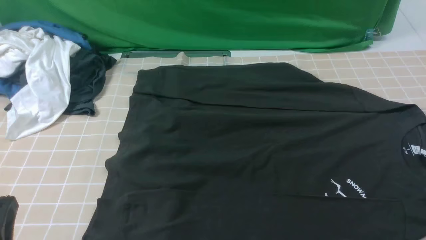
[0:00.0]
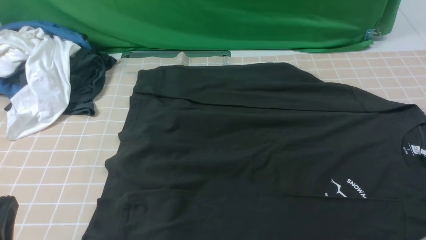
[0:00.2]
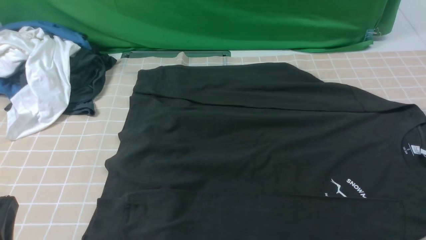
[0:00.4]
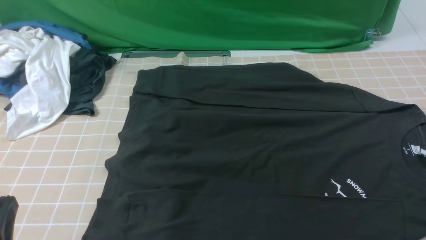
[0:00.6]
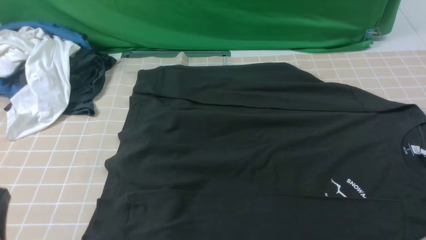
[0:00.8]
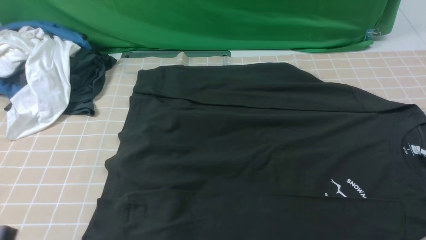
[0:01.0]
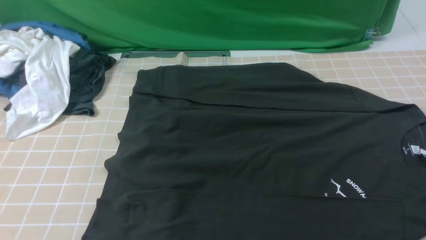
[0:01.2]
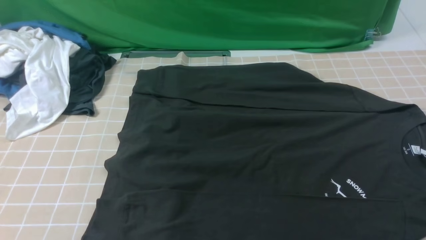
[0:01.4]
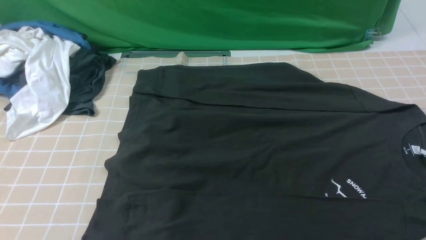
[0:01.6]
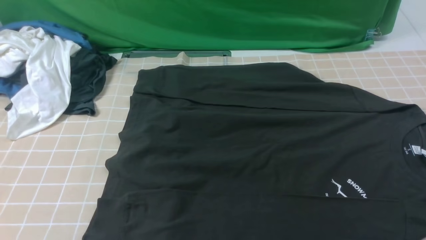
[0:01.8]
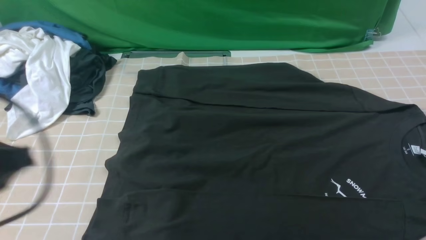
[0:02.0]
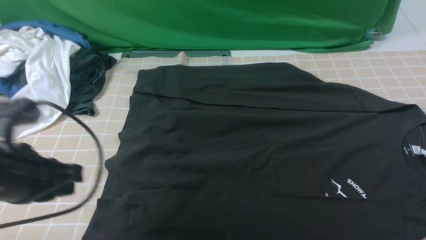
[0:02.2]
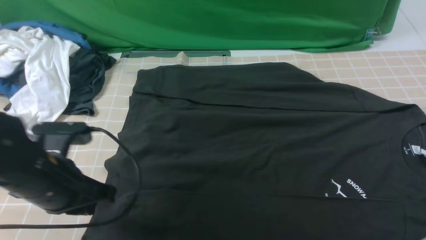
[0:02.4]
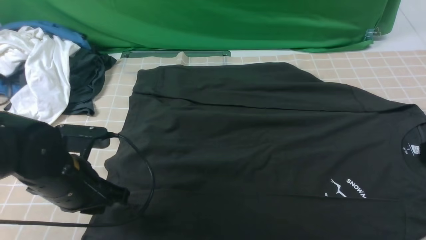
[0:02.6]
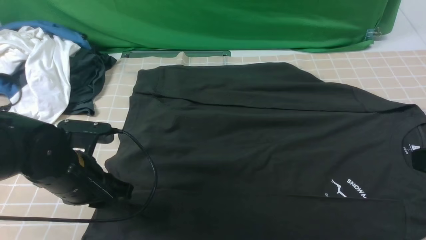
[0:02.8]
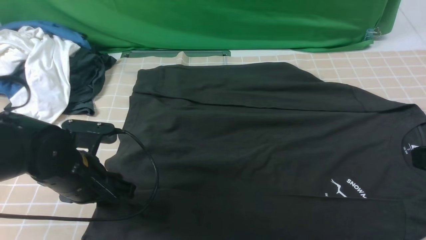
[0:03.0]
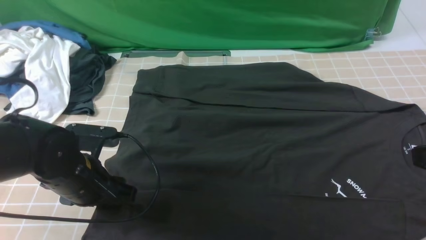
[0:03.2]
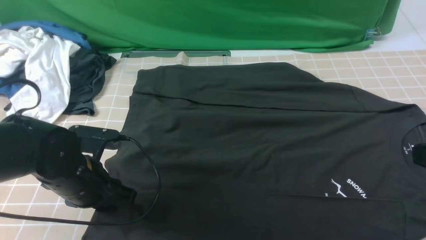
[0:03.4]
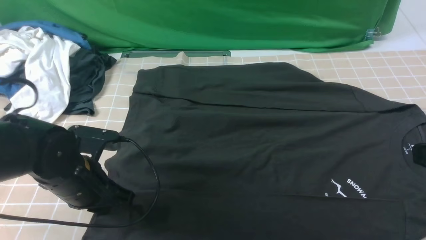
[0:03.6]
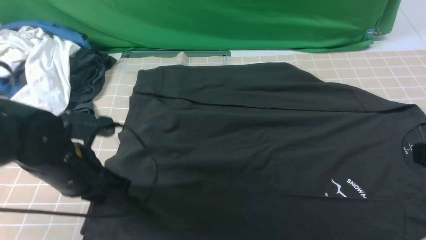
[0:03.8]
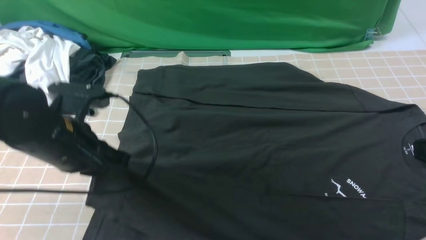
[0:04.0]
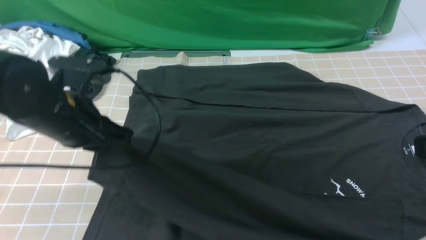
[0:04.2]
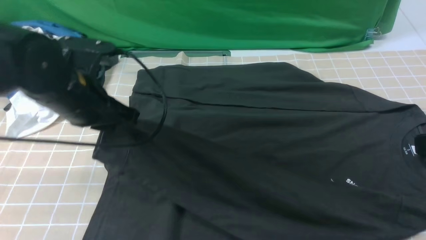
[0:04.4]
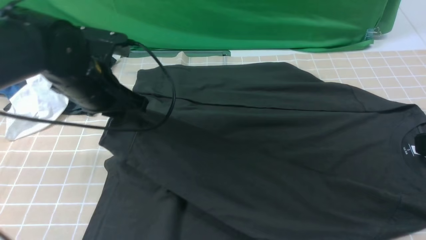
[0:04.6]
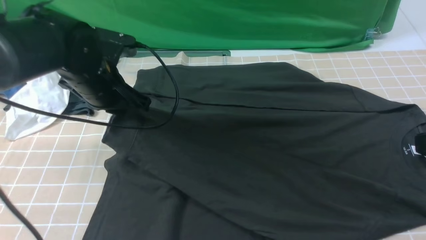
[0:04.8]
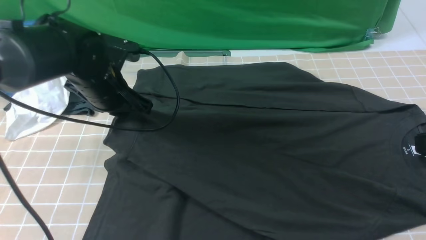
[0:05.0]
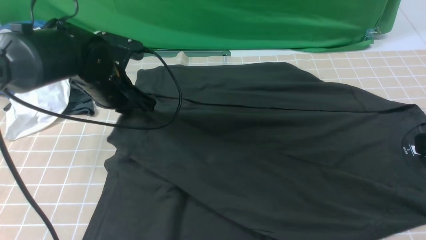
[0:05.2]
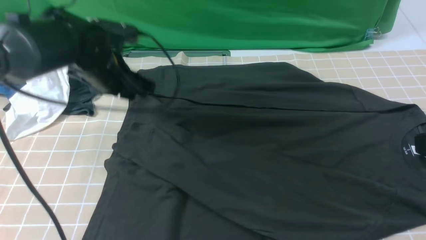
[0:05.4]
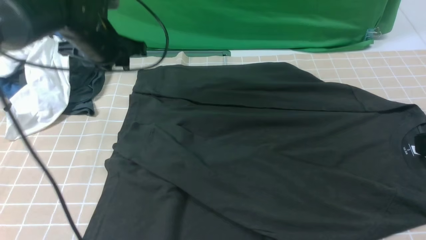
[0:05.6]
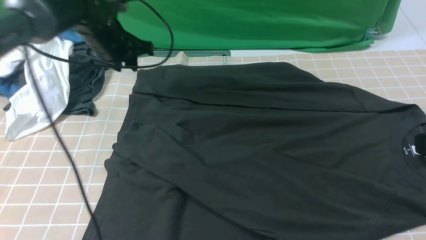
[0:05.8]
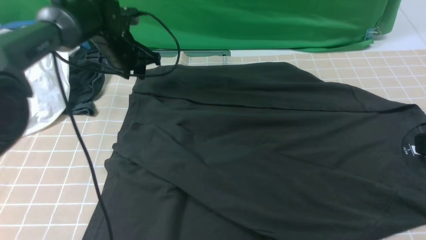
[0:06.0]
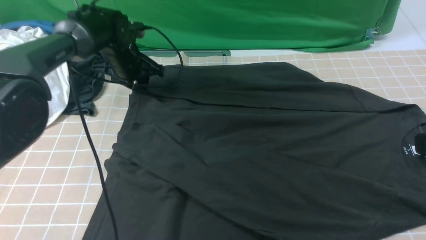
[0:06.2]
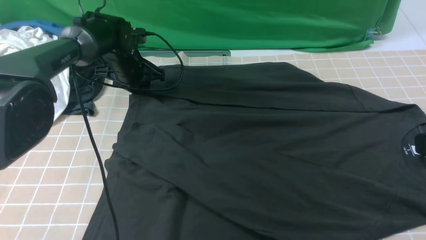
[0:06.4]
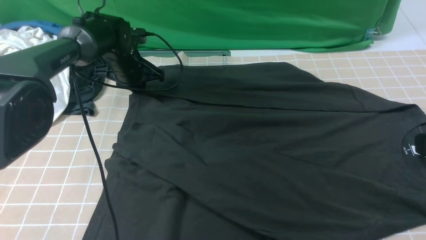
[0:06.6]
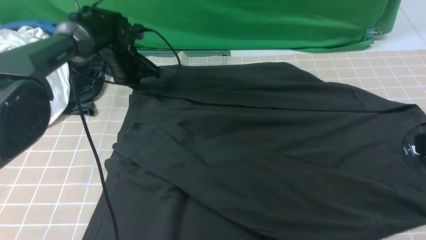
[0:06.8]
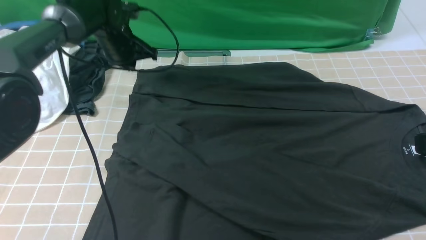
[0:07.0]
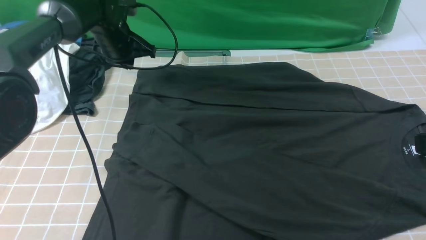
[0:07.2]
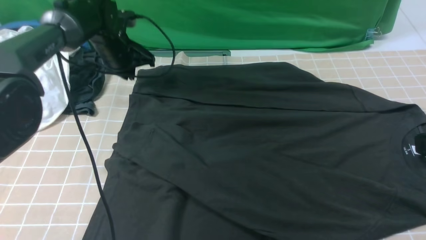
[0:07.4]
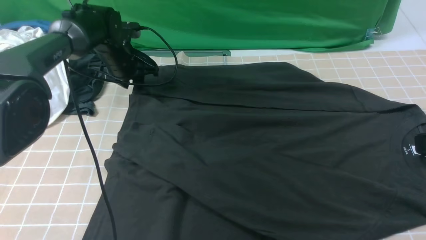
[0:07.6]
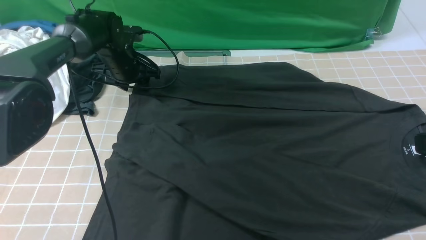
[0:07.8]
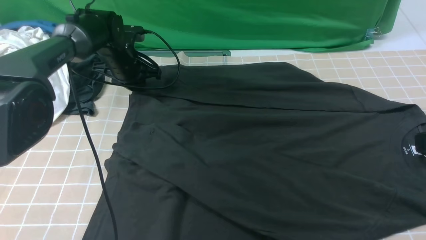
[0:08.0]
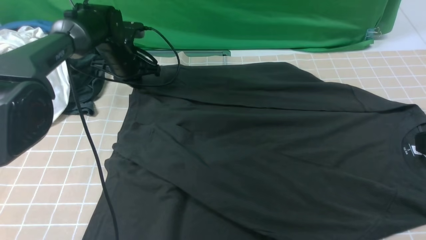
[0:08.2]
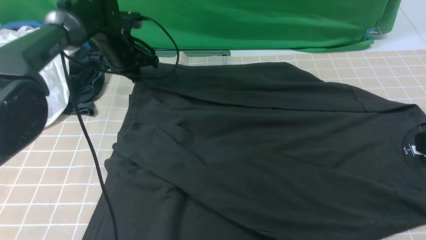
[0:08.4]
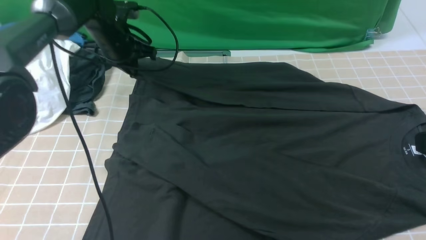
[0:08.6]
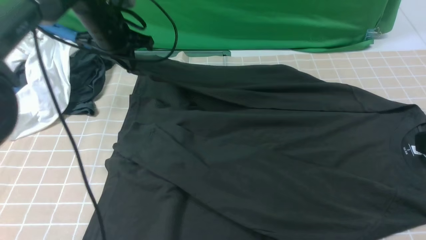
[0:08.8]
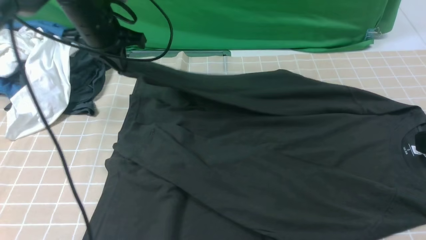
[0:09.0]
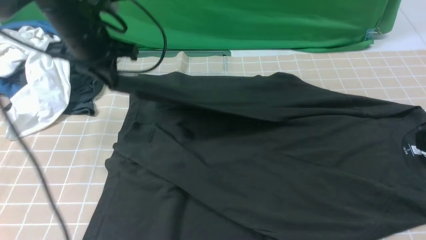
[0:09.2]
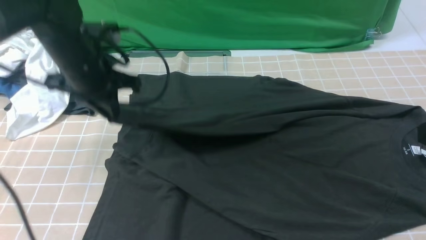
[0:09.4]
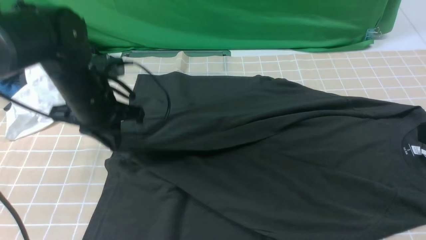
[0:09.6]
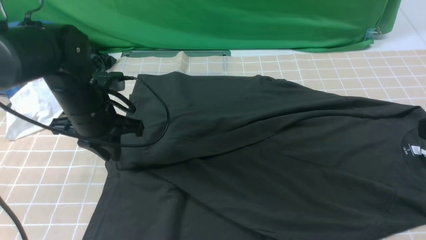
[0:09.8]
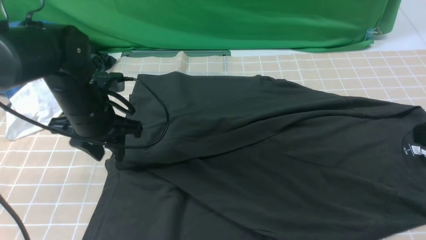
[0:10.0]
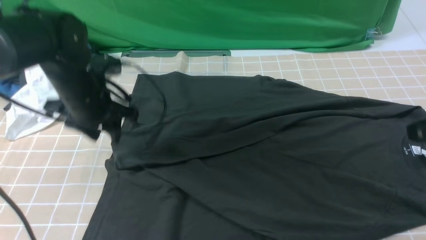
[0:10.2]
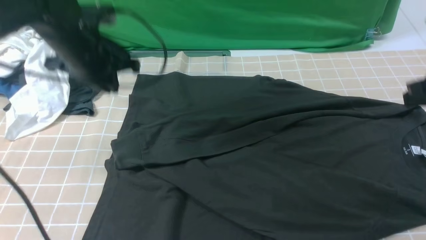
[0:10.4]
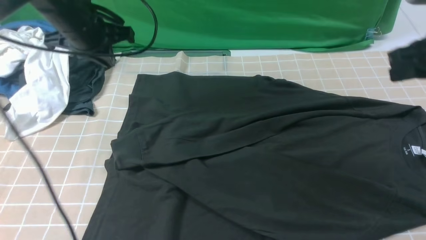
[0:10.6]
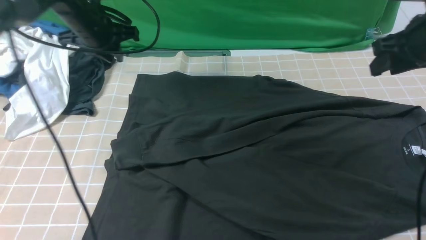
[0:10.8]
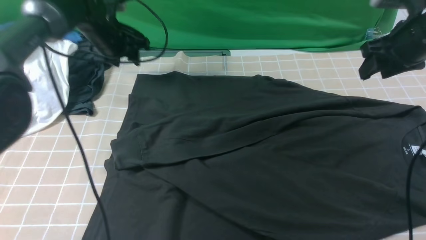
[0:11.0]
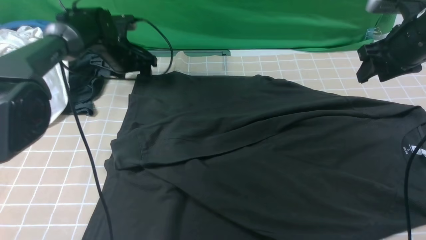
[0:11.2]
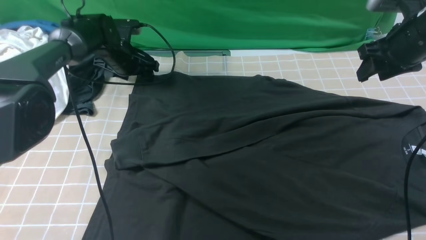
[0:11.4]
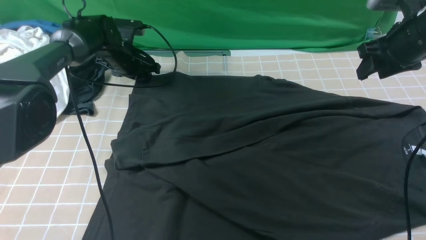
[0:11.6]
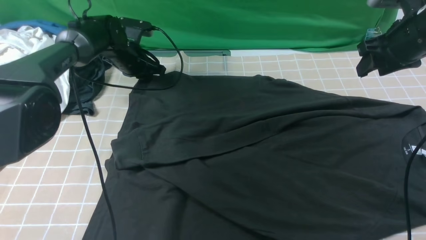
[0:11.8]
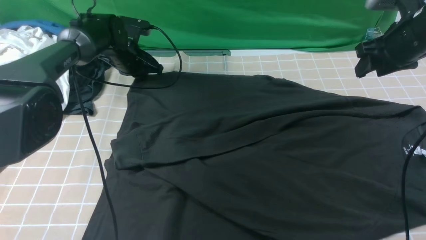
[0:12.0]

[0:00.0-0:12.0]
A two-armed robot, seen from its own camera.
Step, 0:00.0 to 0:03.6: use the left arm to clamp the cuff closest to it.
Step, 0:03.8 to 0:05.2: use the left arm to drag and place the cuff at the centered position on the left edge of the fabric.
Step, 0:05.4 to 0:08.0: use the left arm to clamp the cuff farthest from it.
Step, 0:08.2 to 0:09.8: use the left arm to drag and drop the cuff onto the cuff closest to the left arm.
0:00.0 to 0:01.6: The left gripper shifts roughly 10 cm upward.
0:01.6 to 0:03.0: The left gripper moves forward and downward, approximately 25 cm, and opens its fingers. Meanwhile the right gripper goes some 10 cm forward and upward, and closes.
0:03.0 to 0:04.4: The left gripper goes about 10 cm upward and forward, and closes.
0:04.4 to 0:06.0: The left gripper is displaced forward by approximately 20 cm, and opens up.
0:06.0 to 0:07.6: The left gripper closes, then opens again.
0:07.6 to 0:09.0: The left gripper goes some 15 cm upward and backward, and closes its fingers.
0:09.0 to 0:10.4: The right gripper is displaced forward by approximately 10 cm. The left gripper opens, then closes again.
0:10.4 to 0:12.0: The left gripper heads forward and downward, covering about 20 cm, and opens, then closes again, while the right gripper is displaced forward by about 15 cm, and opens.

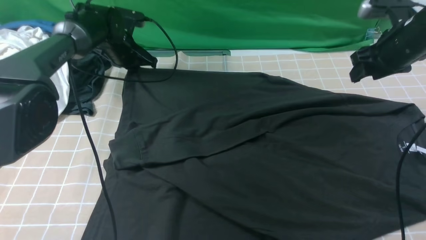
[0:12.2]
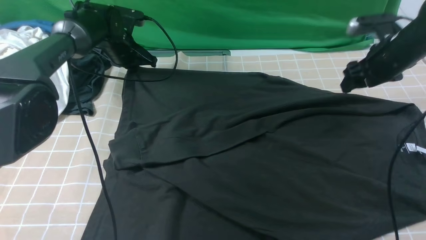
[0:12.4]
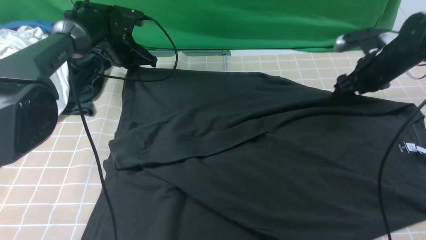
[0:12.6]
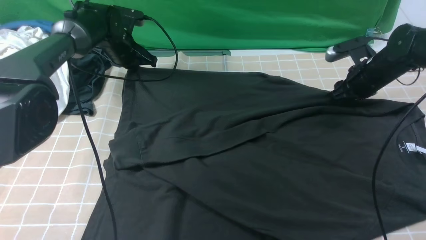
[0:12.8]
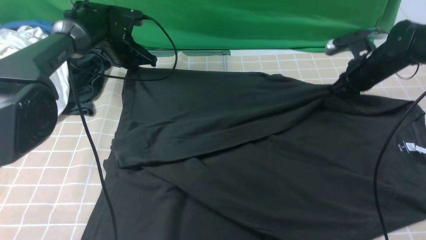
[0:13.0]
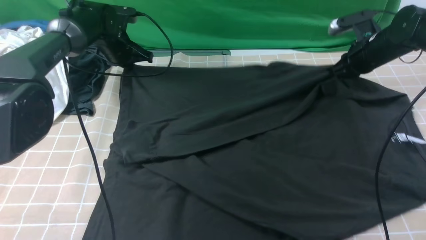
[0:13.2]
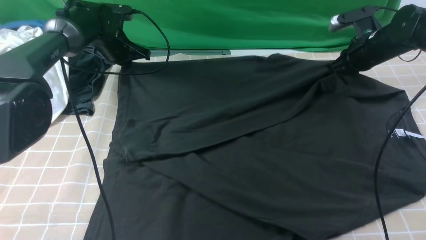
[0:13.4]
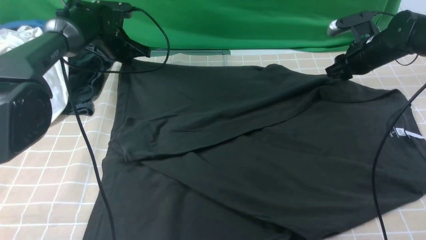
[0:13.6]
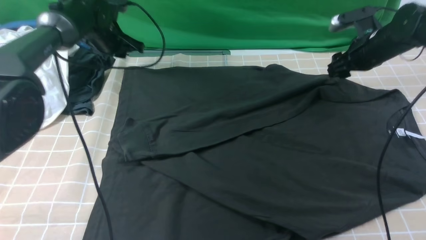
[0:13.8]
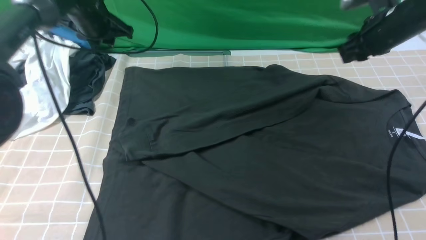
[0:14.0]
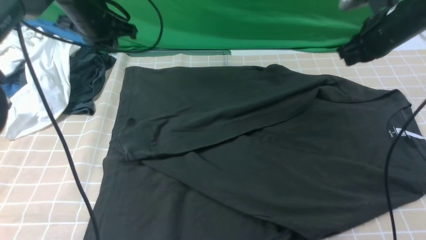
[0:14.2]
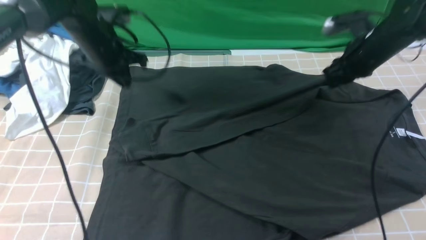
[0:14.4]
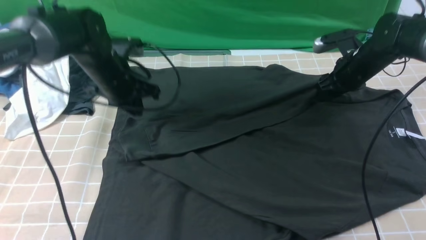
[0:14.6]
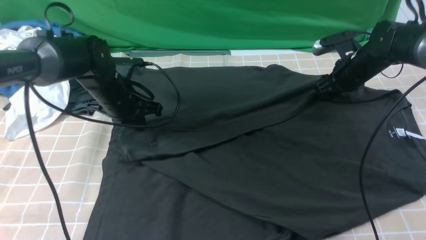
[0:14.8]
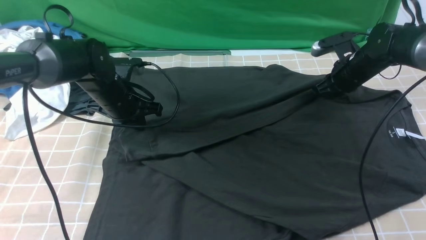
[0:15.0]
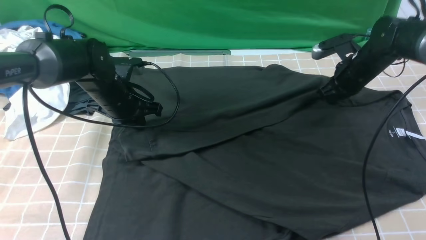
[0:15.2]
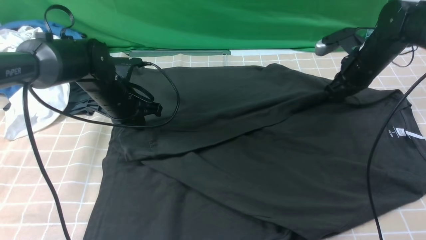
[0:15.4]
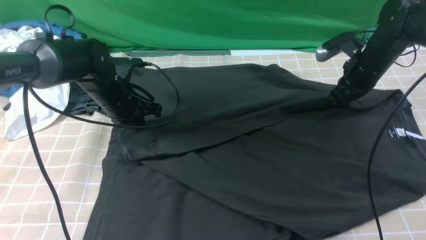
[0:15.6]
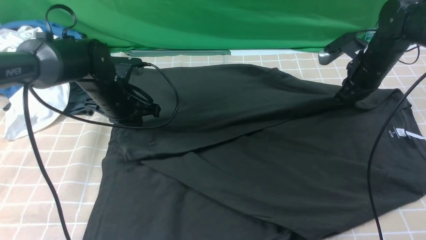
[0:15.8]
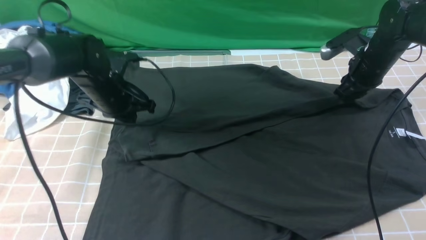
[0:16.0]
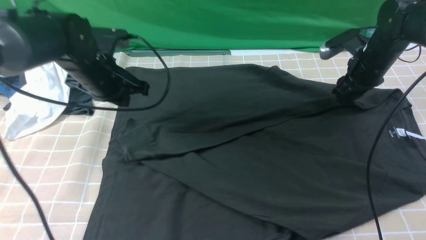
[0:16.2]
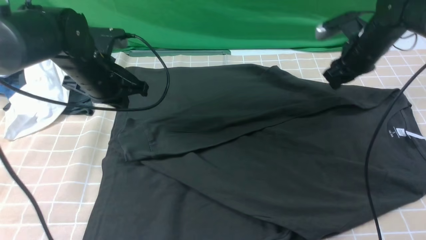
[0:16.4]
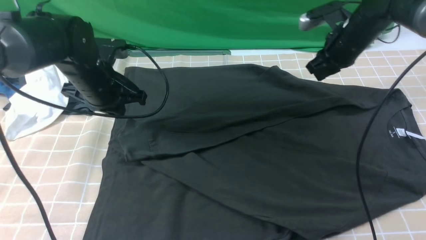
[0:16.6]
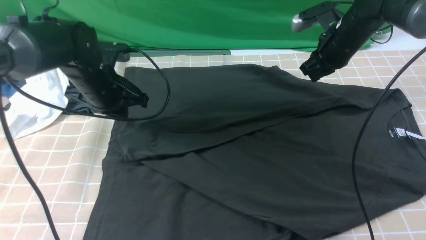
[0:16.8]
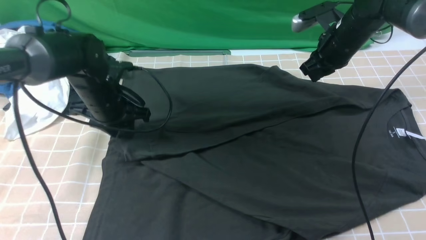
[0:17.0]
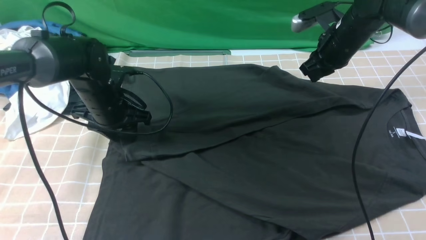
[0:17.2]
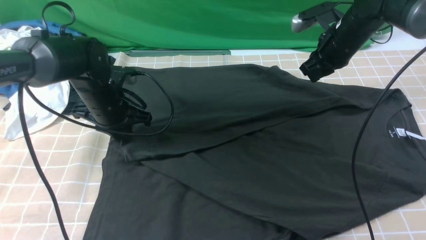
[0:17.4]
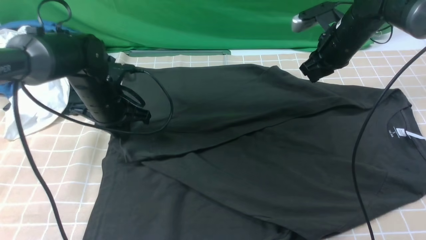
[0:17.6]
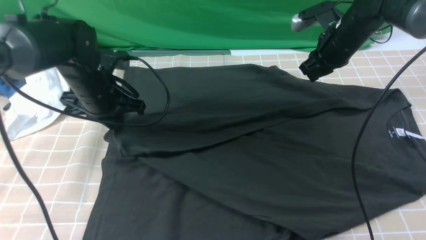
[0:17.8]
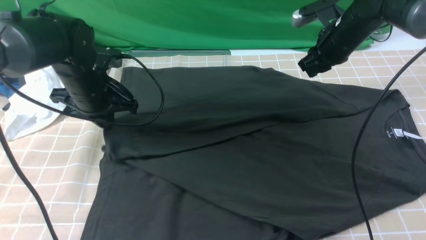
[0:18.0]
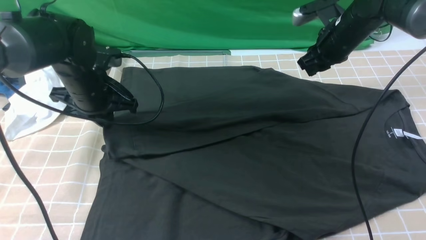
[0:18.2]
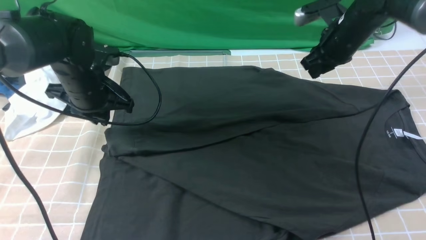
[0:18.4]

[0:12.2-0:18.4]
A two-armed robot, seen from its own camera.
0:12.2 to 0:13.8: The right gripper travels downward and back again, about 10 cm each way, and closes, then opens again, while the left gripper shifts by roughly 5 cm.
0:13.8 to 0:15.4: The right gripper closes its fingers, while the left gripper moves backward and downward, about 15 cm, and closes its fingers.
0:15.4 to 0:16.8: The right gripper moves to the left, roughly 5 cm, and opens and closes again.
0:16.8 to 0:18.4: The grippers make only small movements.
